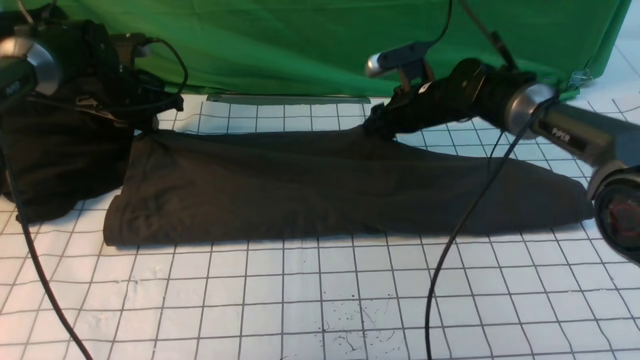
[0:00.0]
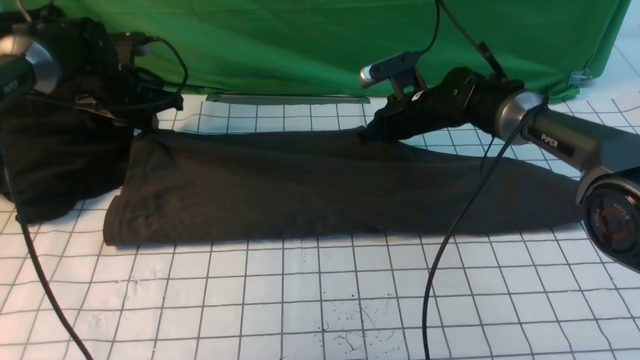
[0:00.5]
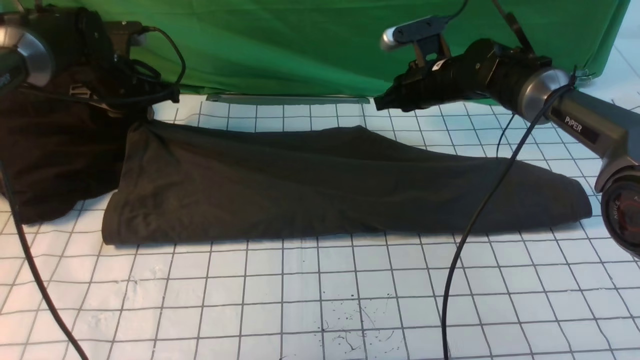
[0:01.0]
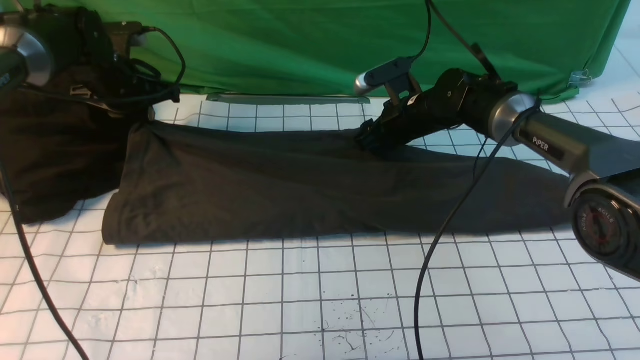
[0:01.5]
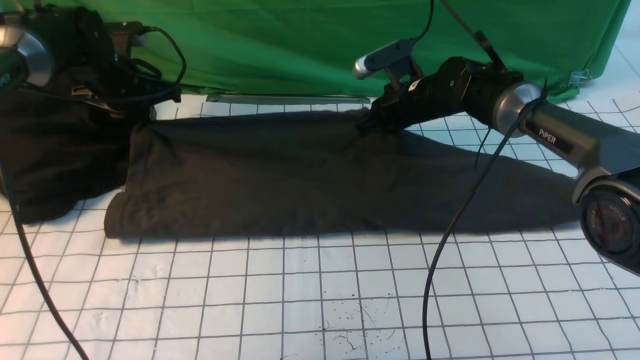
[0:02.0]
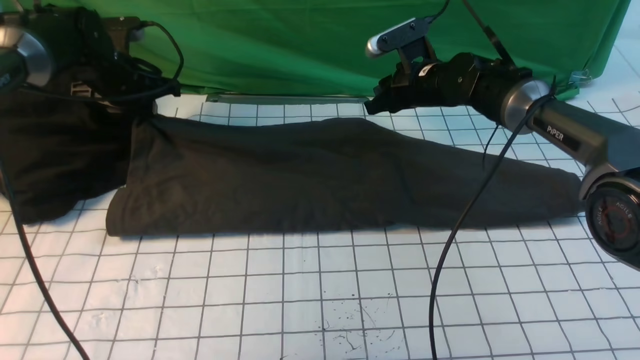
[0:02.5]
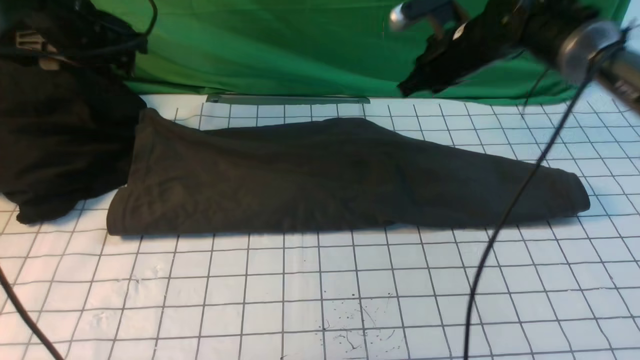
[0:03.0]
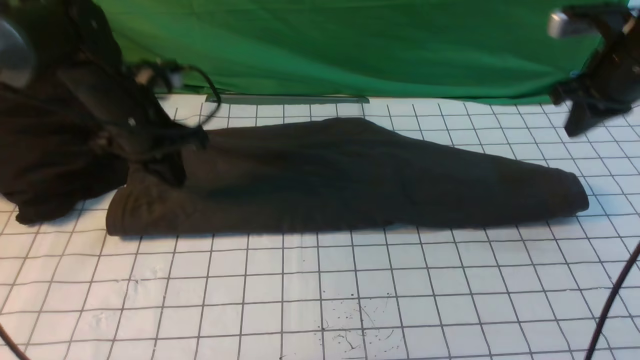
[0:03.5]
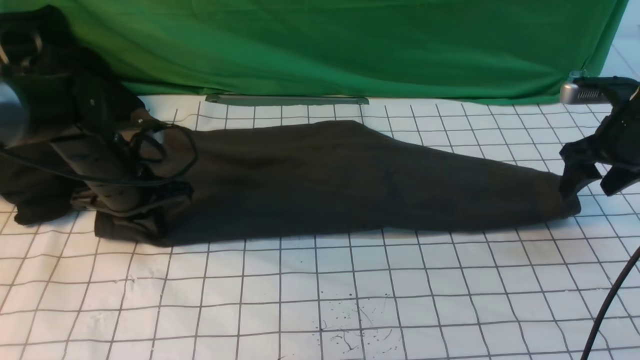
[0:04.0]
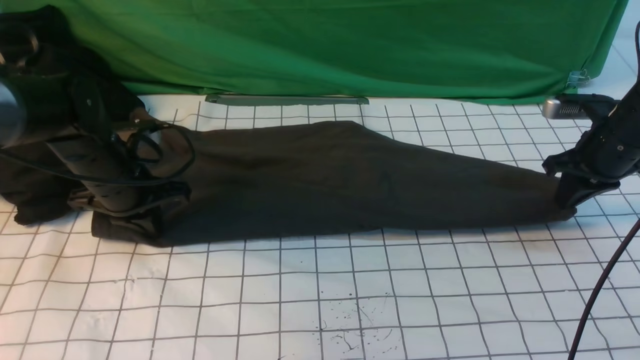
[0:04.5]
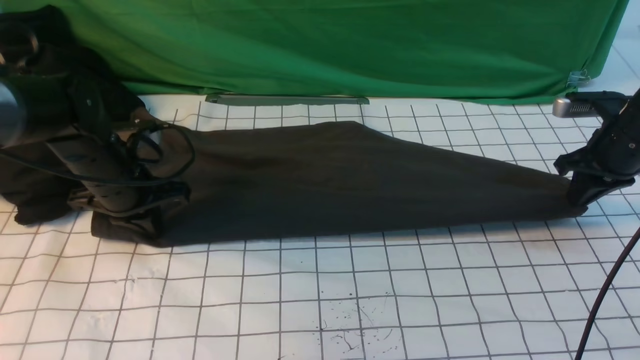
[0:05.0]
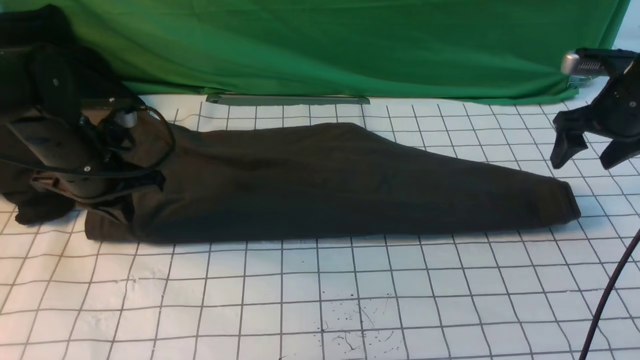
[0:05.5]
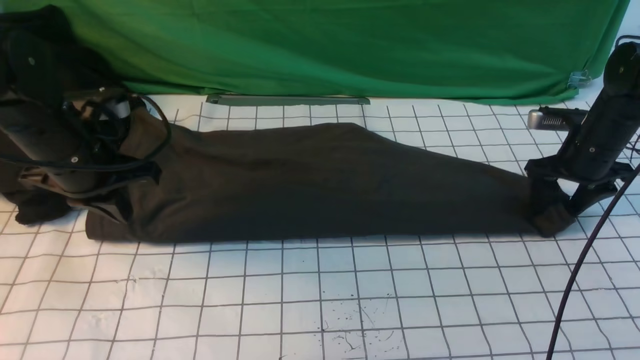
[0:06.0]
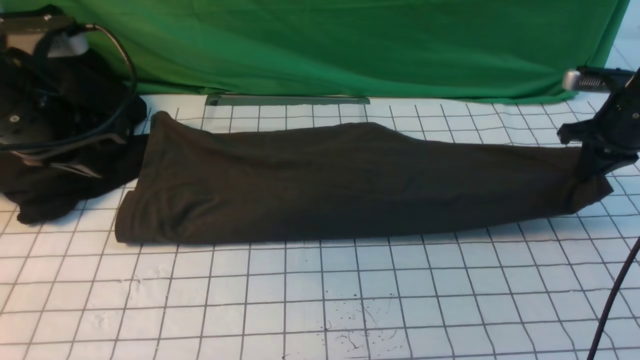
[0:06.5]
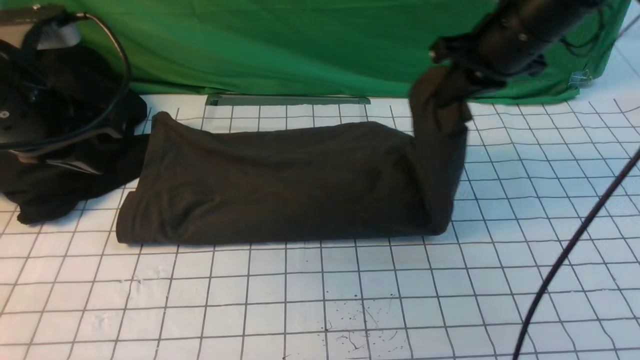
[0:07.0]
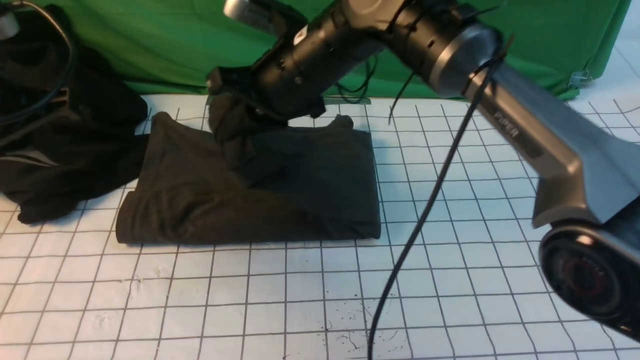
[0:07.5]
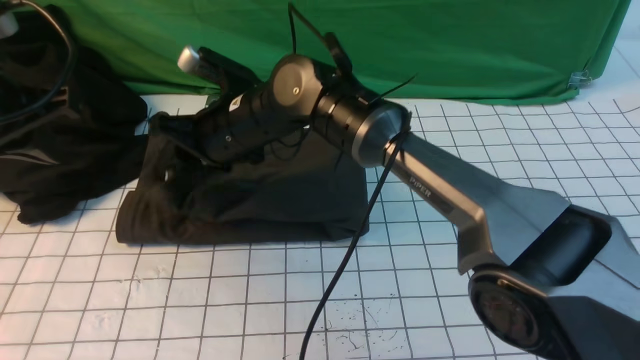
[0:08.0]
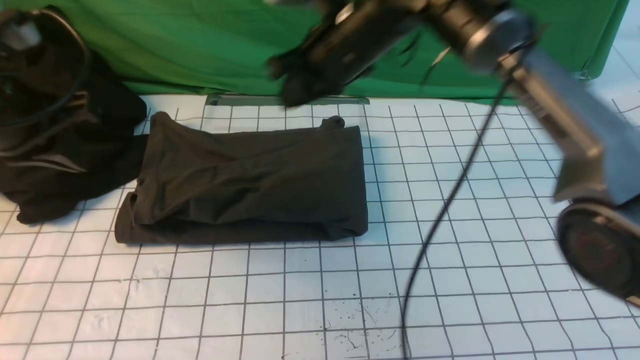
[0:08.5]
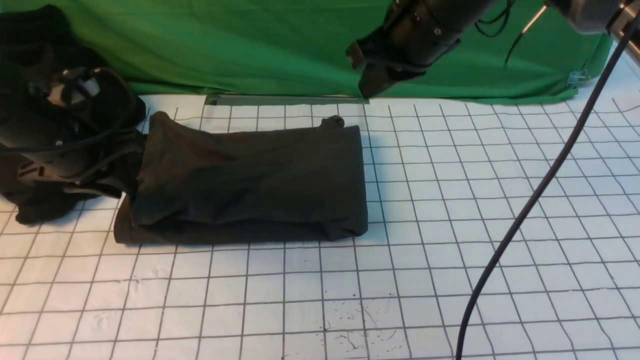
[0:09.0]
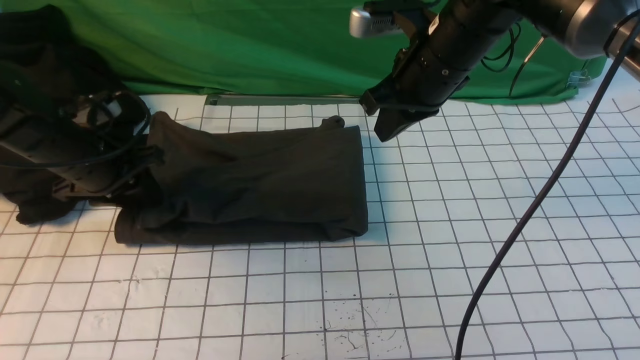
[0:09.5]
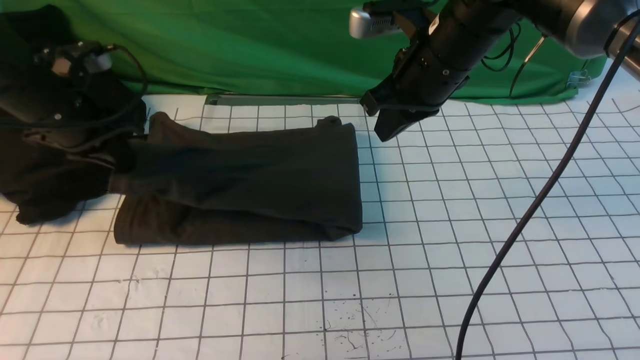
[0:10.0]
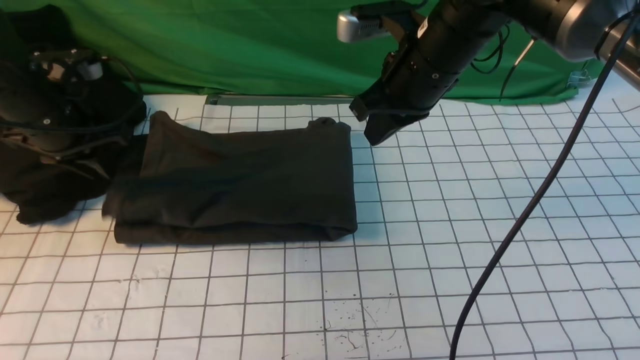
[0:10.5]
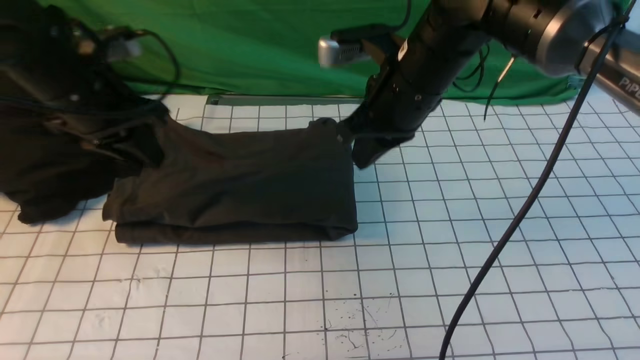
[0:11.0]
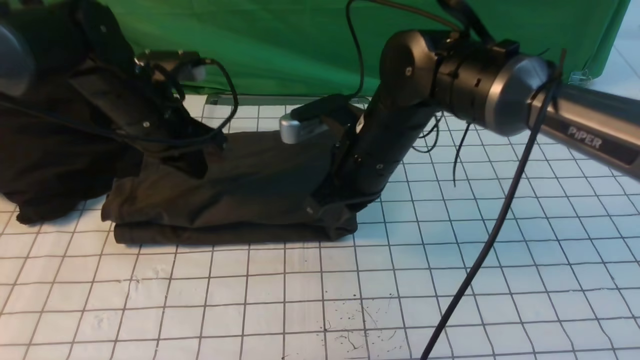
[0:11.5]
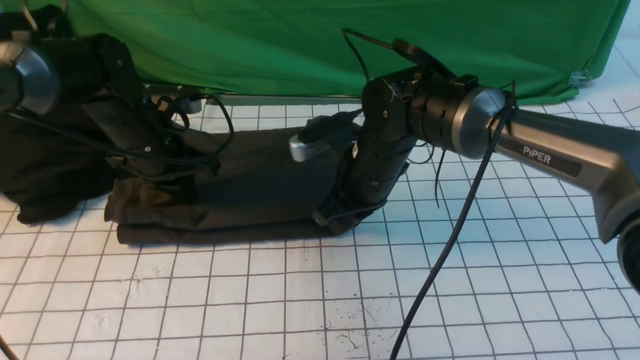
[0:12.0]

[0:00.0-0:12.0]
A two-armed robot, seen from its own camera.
Step, 0:00.0 to 0:06.0: use the right arm to clamp the right edge of the fabric.
Step, 0:07.0 to 0:08.0: use the right arm to drag the right edge of the fabric to the left and folds it over the left edge.
0:00.0 to 0:02.0: The right gripper closes its fingers.
0:02.0 to 0:04.0: The left gripper goes about 15 cm backward, and opens, then closes again, while the right gripper moves to the right and backward, approximately 25 cm, and opens its fingers.
0:04.0 to 0:06.0: The left gripper moves upward, approximately 10 cm, while the right gripper is displaced downward by approximately 5 cm, and closes, then opens again.
0:06.0 to 0:08.0: The left gripper heads upward and backward, covering some 10 cm. Meanwhile the right gripper goes approximately 40 cm to the left, and closes, then reopens.
0:08.0 to 0:10.0: The right gripper is displaced to the right by roughly 20 cm, and closes up; the left gripper goes roughly 15 cm forward and downward, and opens and closes again.
0:10.0 to 0:12.0: The right gripper heads downward and to the left, covering about 15 cm. Meanwhile the left gripper heads to the right, covering roughly 10 cm, and opens and closes again.

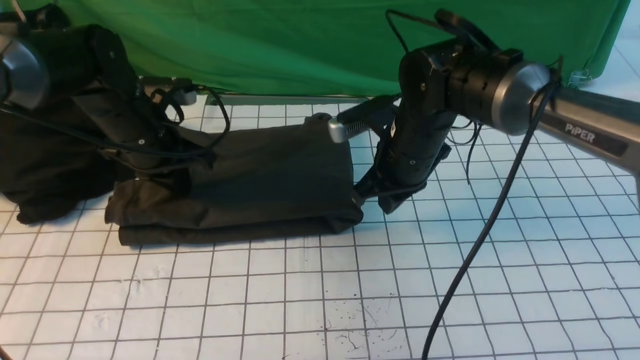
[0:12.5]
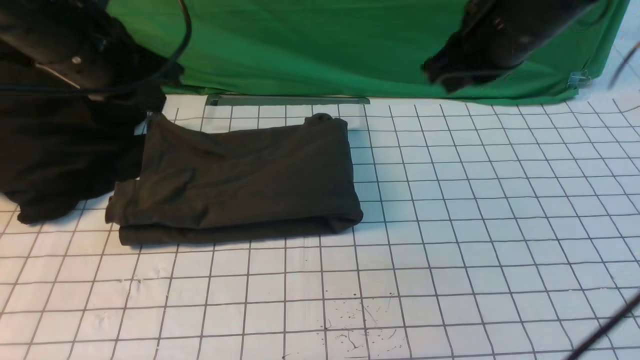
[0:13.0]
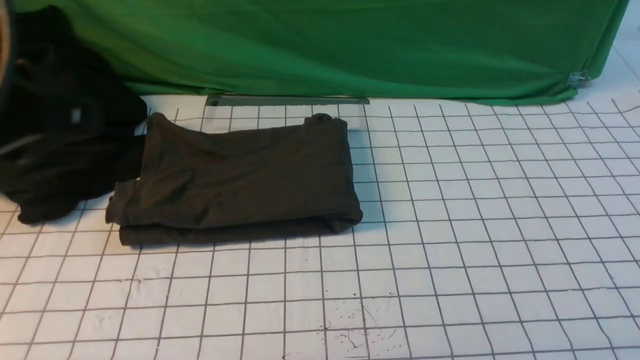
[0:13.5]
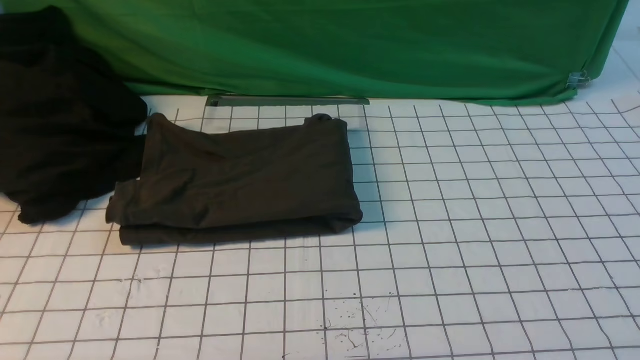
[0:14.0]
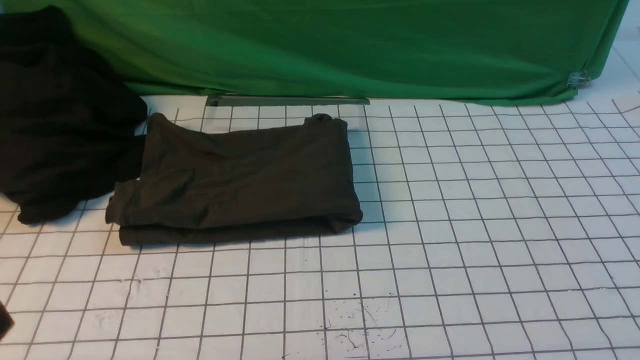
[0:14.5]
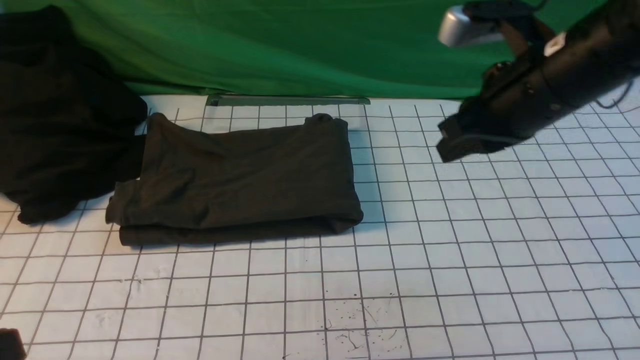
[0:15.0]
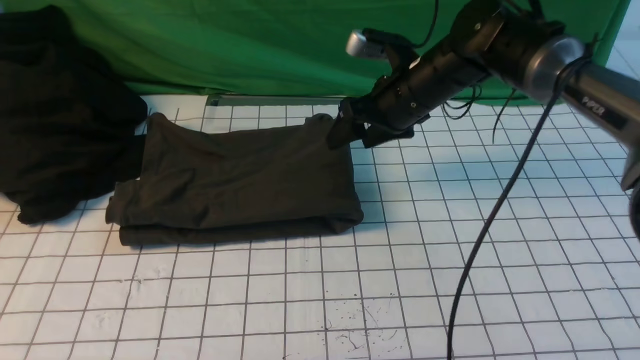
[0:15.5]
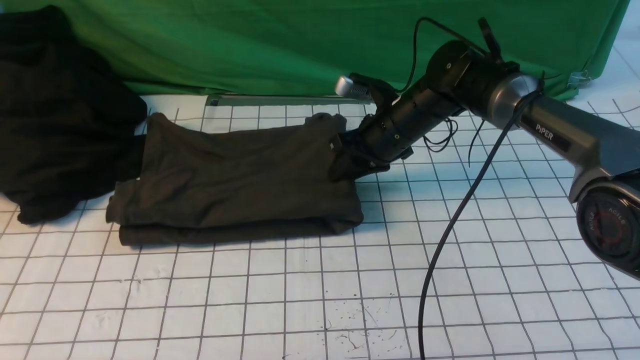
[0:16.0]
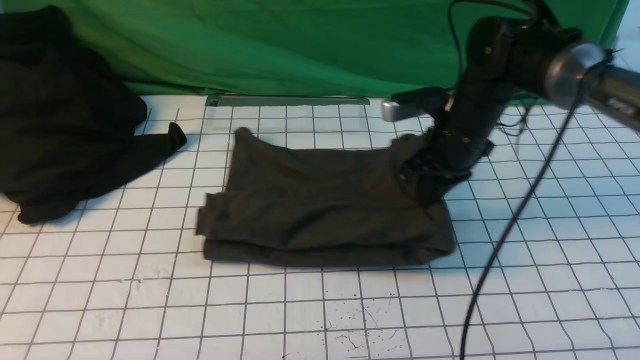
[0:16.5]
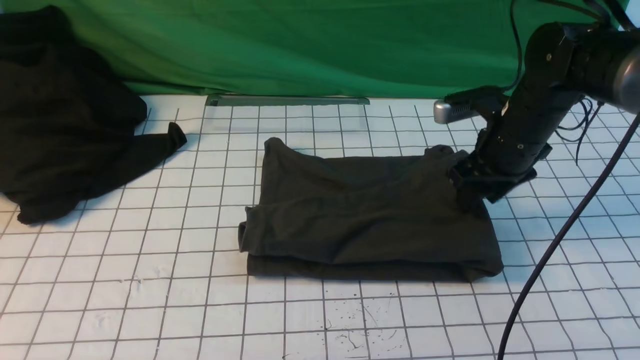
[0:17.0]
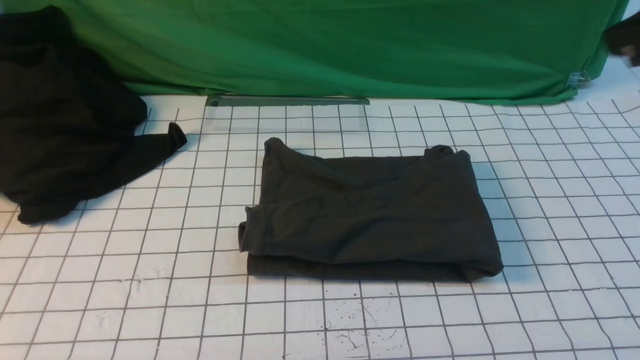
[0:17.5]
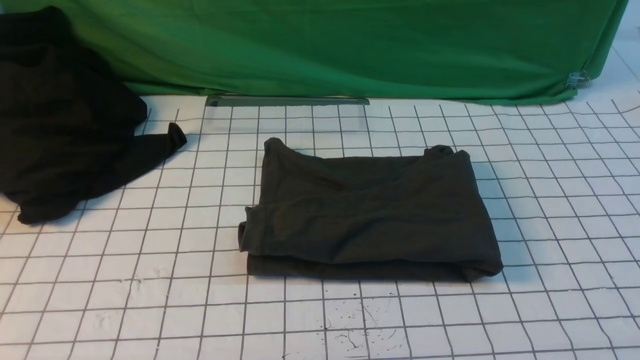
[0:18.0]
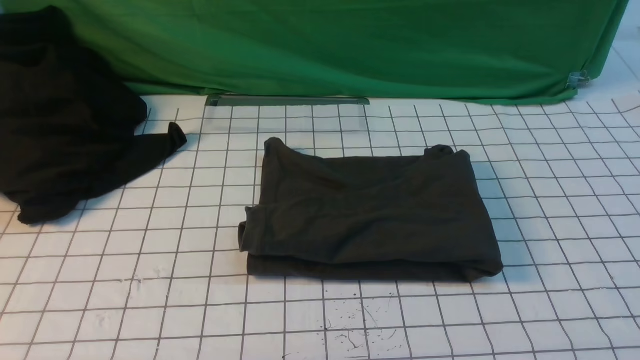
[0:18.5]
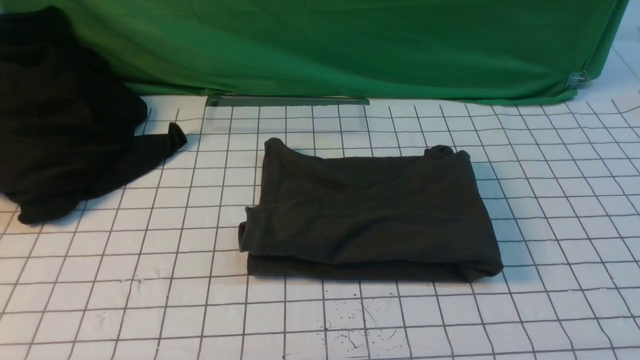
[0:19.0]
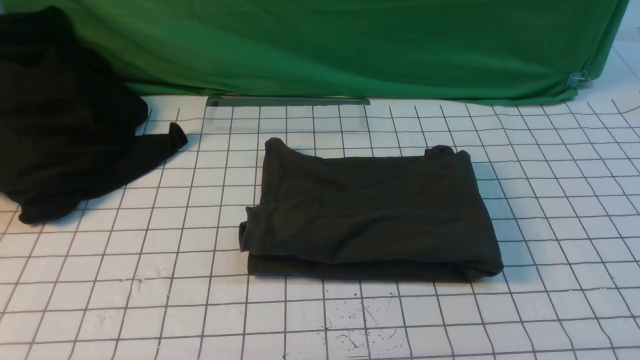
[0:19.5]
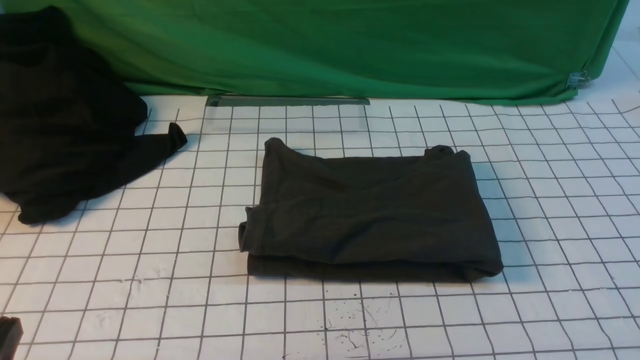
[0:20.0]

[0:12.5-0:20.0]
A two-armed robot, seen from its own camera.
0:12.5 to 0:14.5: The left gripper goes approximately 40 cm backward. Meanwhile the right gripper is displaced backward, to the right and upward by about 35 cm.
0:14.5 to 0:16.5: The right gripper heads forward and downward, covering about 35 cm, and opens, then closes once more.
0:16.5 to 0:18.0: The right gripper moves backward and upward, some 40 cm, and opens, then closes again.
